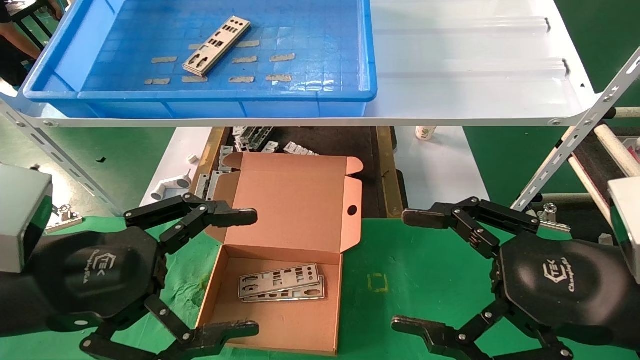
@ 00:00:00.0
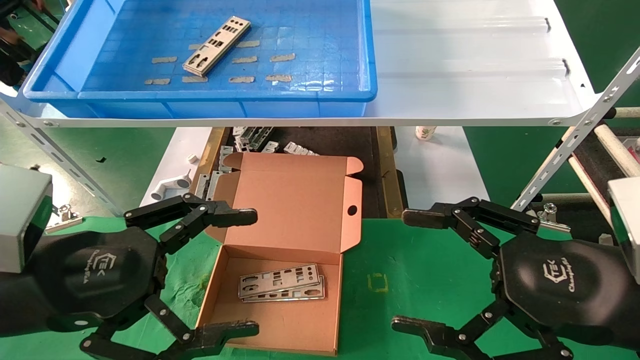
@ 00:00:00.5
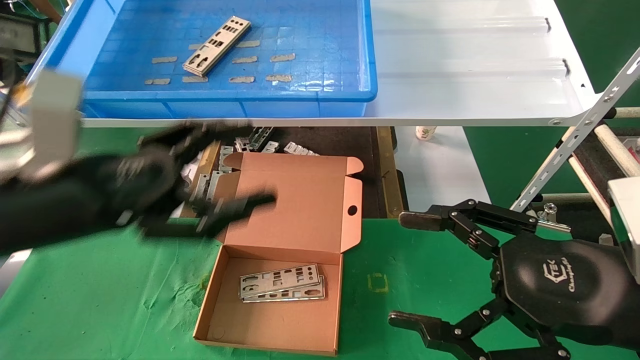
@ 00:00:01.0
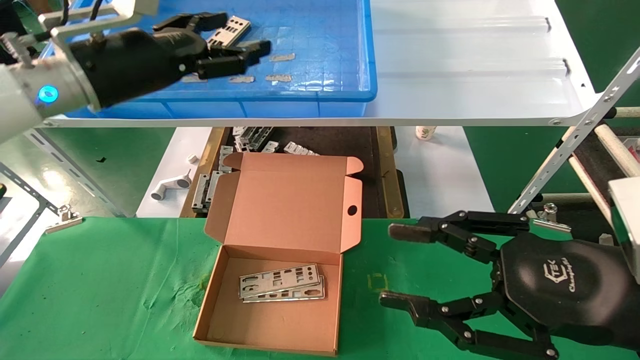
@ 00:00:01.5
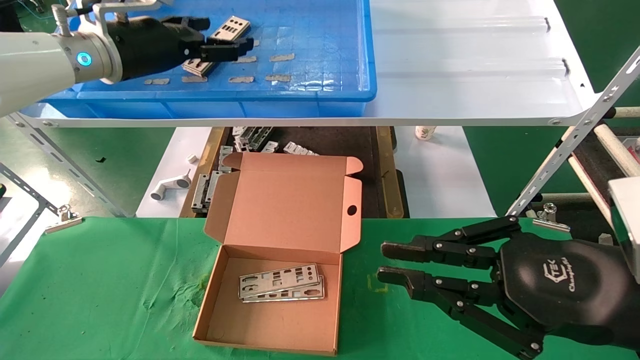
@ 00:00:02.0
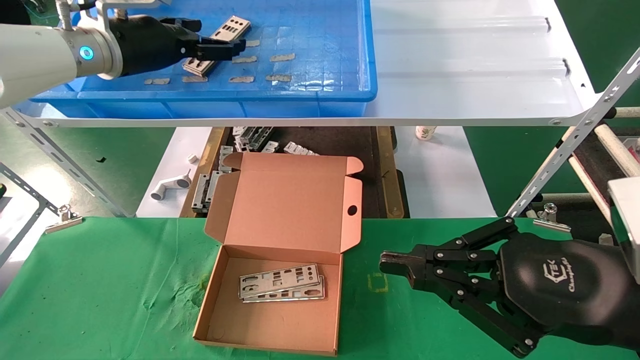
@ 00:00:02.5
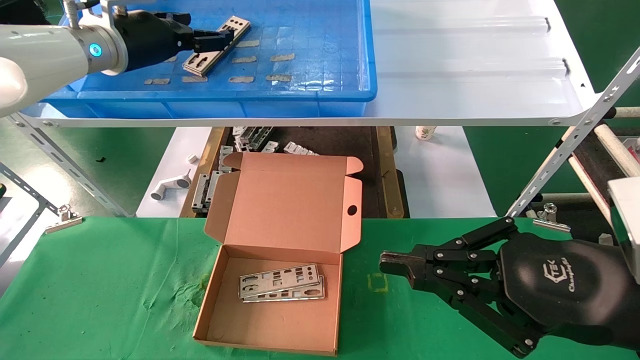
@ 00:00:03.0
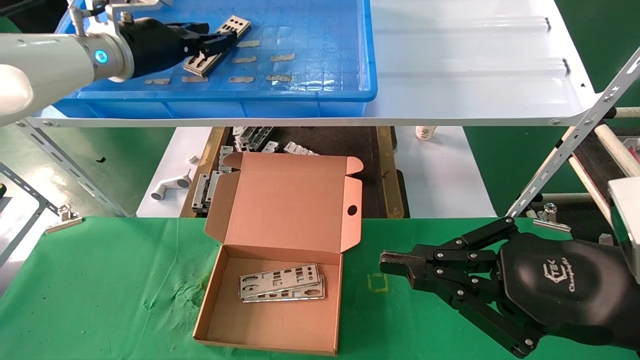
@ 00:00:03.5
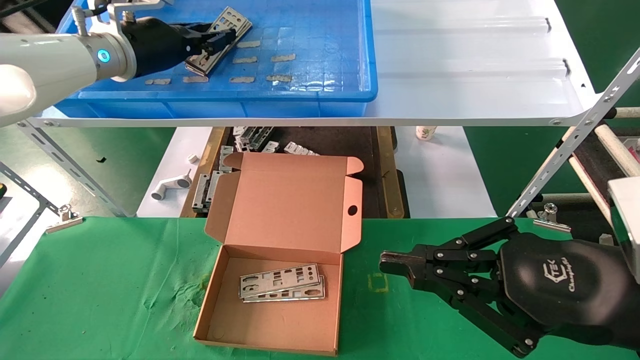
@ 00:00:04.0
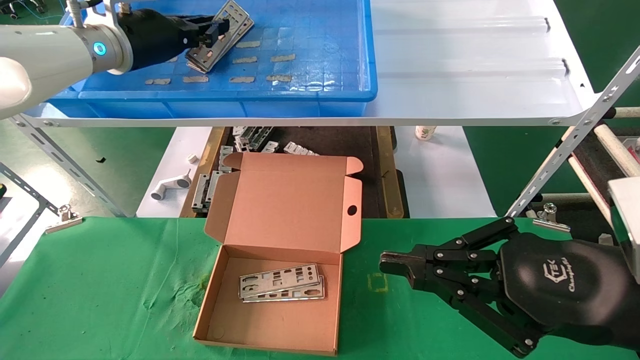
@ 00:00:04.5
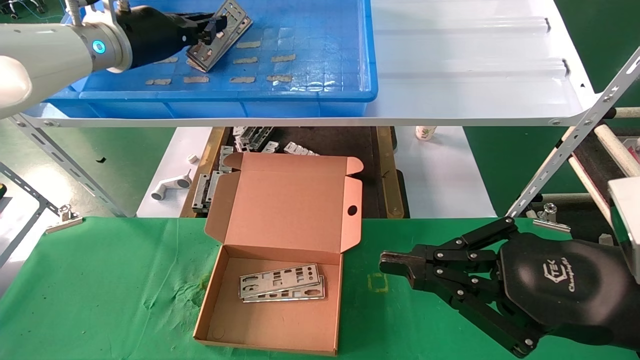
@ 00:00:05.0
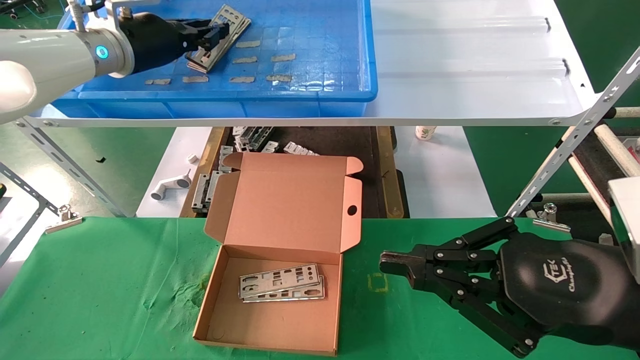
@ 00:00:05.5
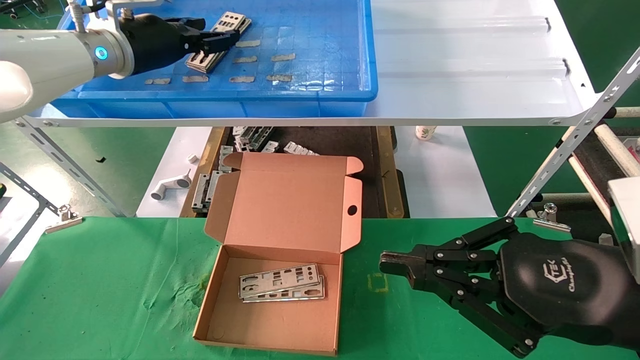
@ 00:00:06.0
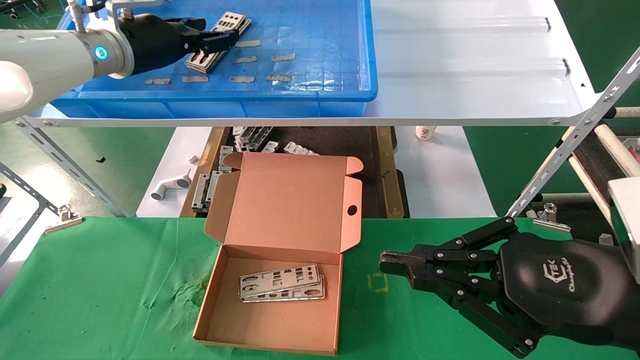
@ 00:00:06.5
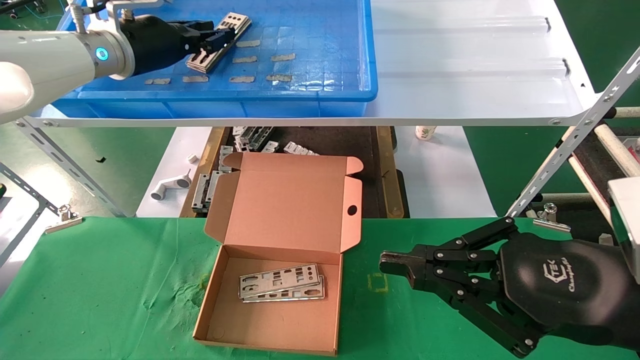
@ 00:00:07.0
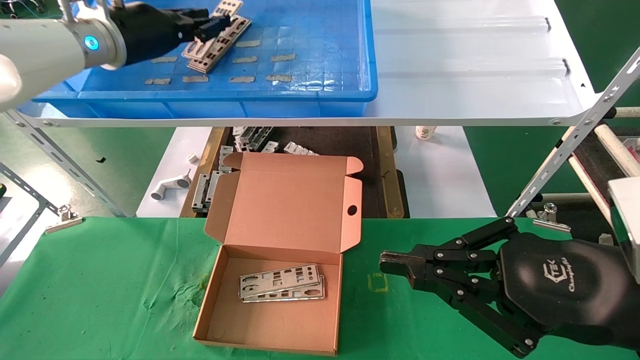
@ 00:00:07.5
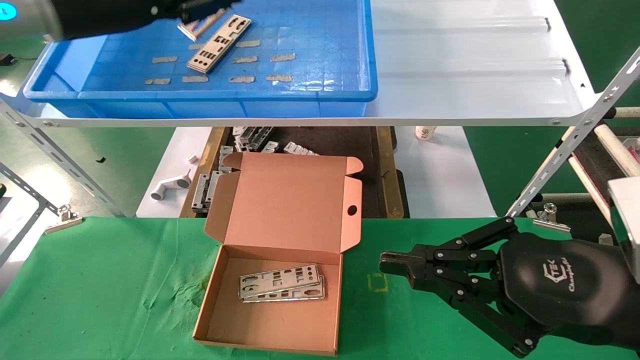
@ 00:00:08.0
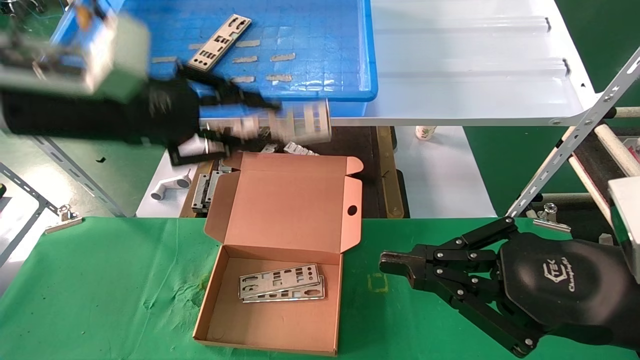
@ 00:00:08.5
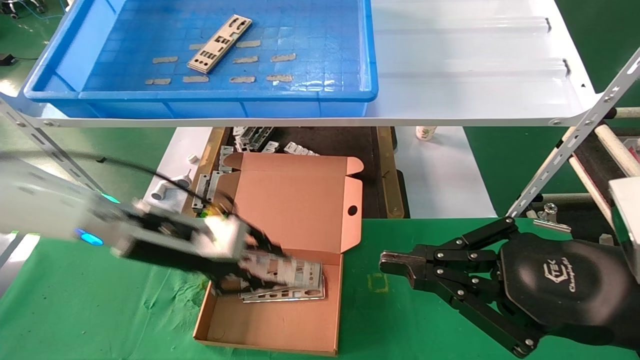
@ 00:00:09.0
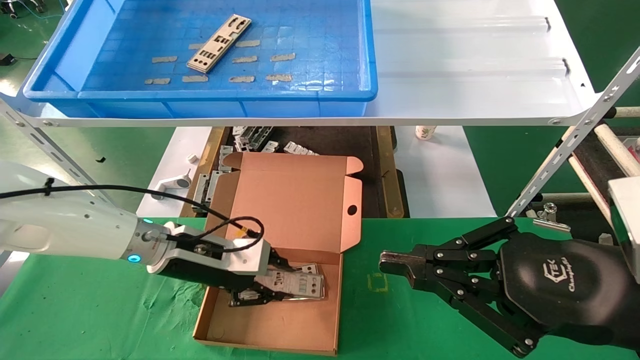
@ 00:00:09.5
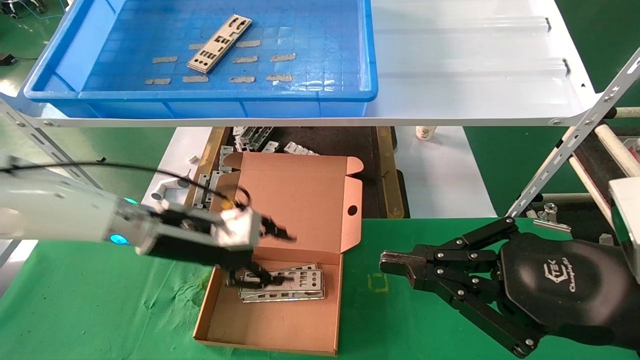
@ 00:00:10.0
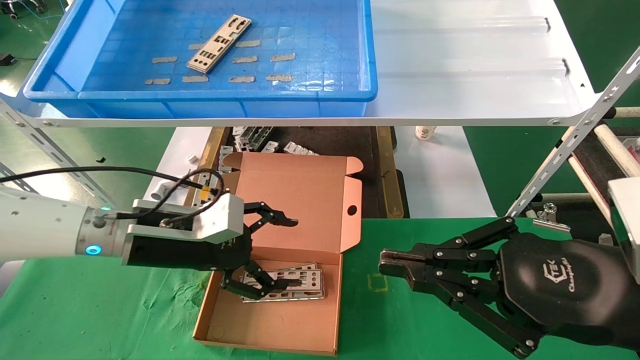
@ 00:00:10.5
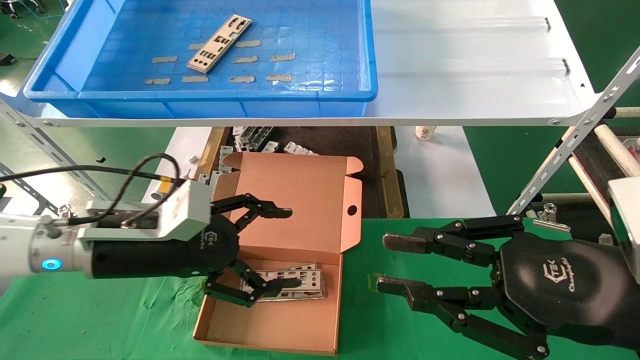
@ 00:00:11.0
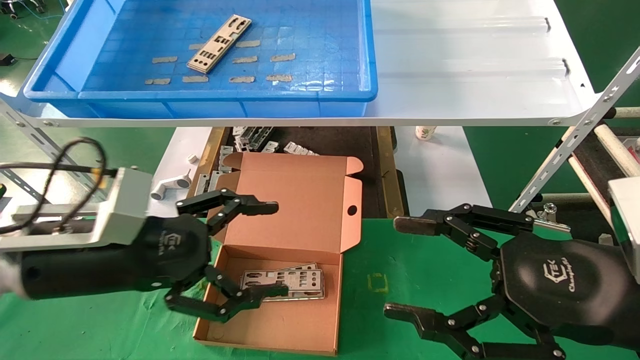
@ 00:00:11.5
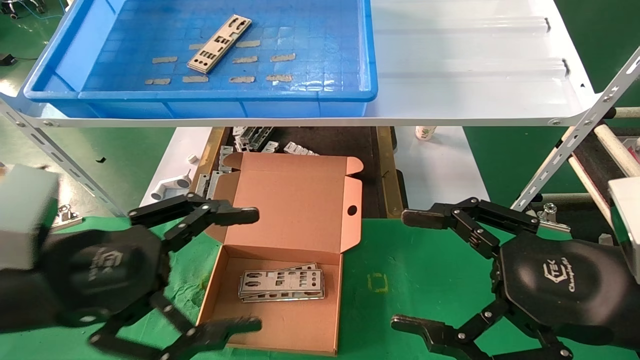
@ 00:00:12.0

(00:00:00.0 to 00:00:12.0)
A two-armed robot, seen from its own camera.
Task of the whole recording: pick up the parts on the tray and put them in the cardboard box.
Step, 00:00:01.0 - 00:00:07.5: Pick up the IO bracket from the container box.
Step, 00:00:08.0 - 00:00:09.5: Place the IO bracket into the ingredient slot.
00:00:00.0 - 00:00:02.0: The right gripper closes, while the left gripper heads forward and upward, covering some 30 cm.
00:00:02.0 - 00:00:04.0: The left gripper closes its fingers.
00:00:04.0 - 00:00:06.0: Neither gripper changes place.
00:00:06.0 - 00:00:08.0: The left gripper heads backward, covering approximately 10 cm.
00:00:08.0 - 00:00:10.0: The left gripper heads downward, covering approximately 25 cm.
00:00:10.0 - 00:00:12.0: The left gripper heads backward, covering roughly 20 cm, and opens up; the right gripper opens up.

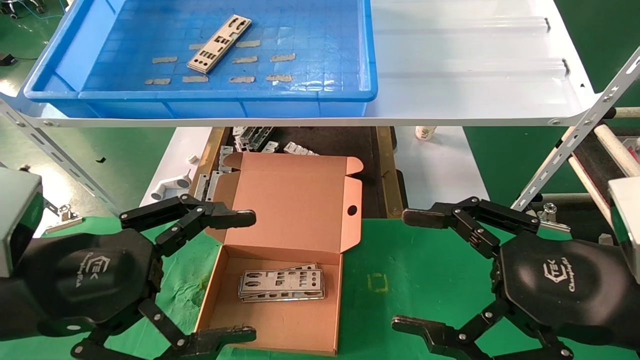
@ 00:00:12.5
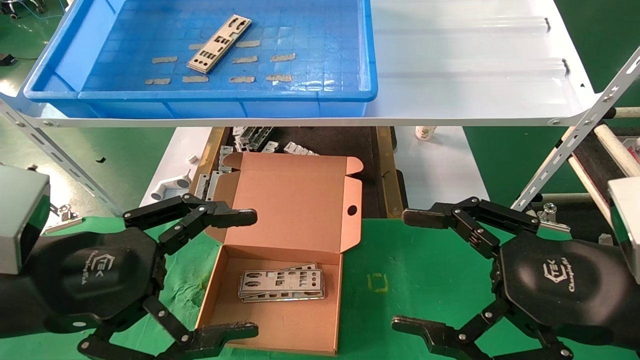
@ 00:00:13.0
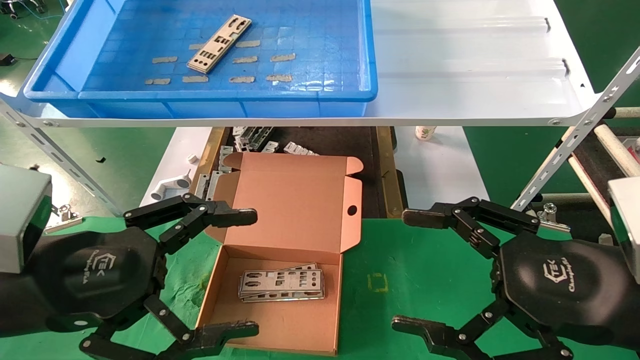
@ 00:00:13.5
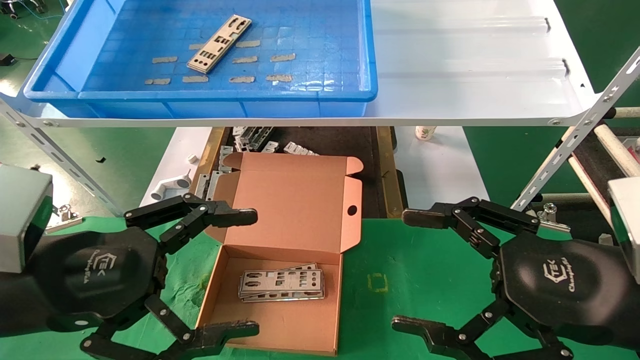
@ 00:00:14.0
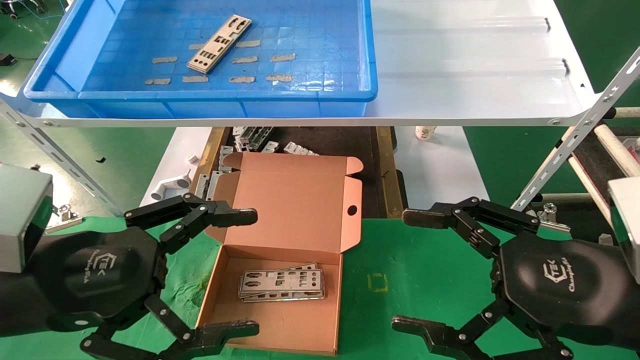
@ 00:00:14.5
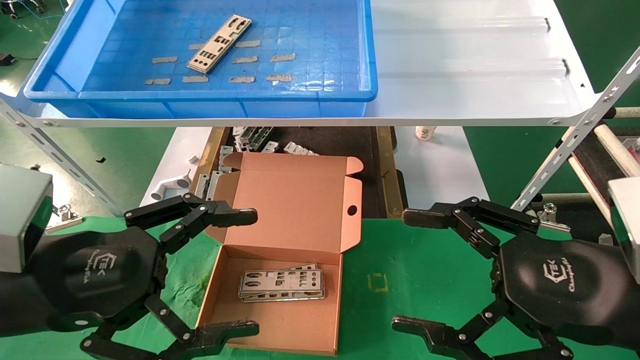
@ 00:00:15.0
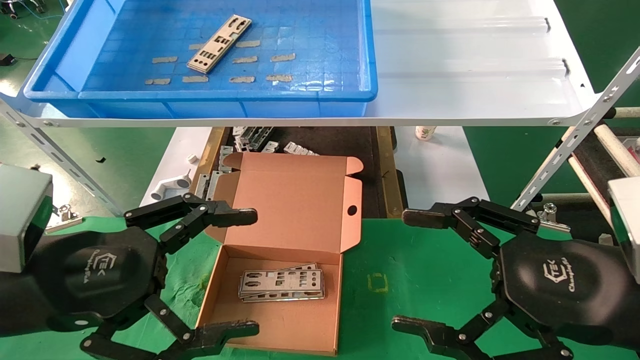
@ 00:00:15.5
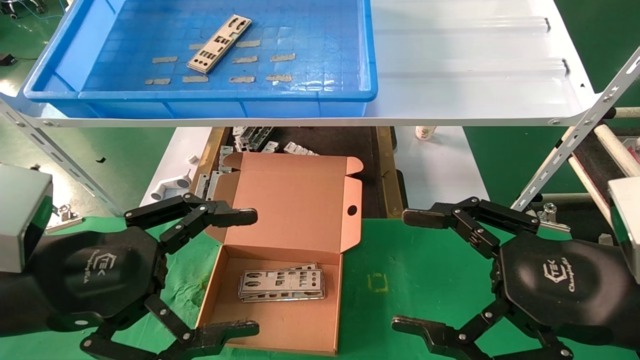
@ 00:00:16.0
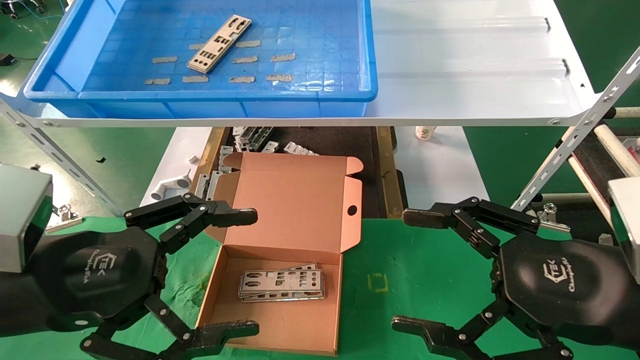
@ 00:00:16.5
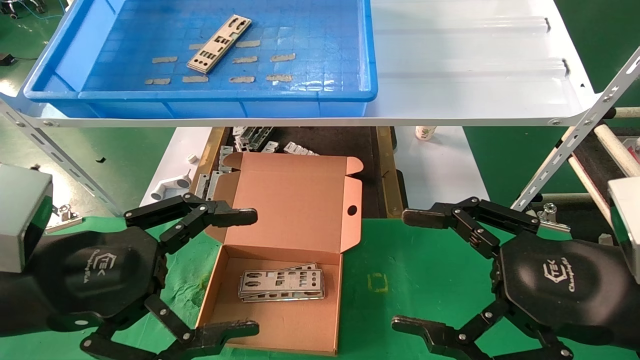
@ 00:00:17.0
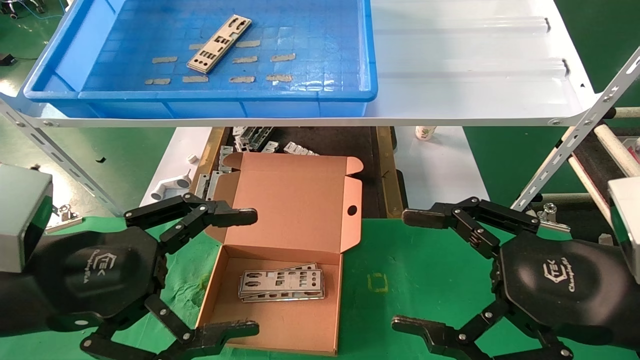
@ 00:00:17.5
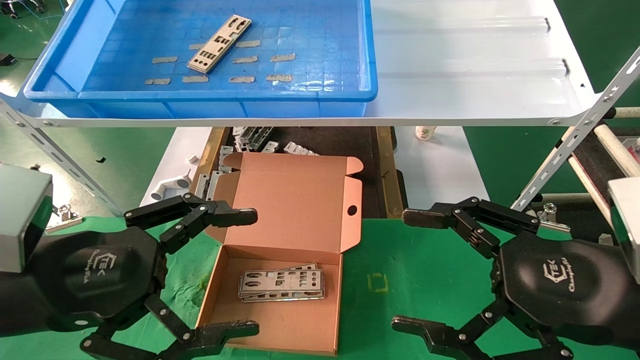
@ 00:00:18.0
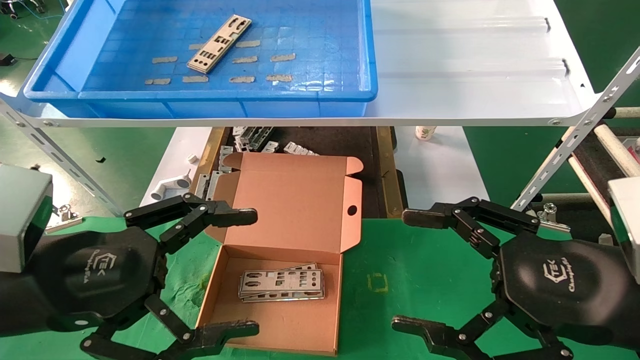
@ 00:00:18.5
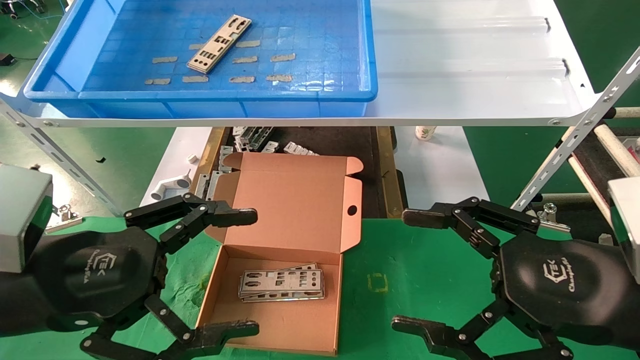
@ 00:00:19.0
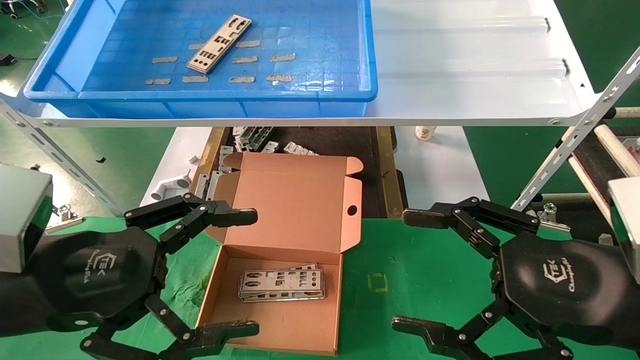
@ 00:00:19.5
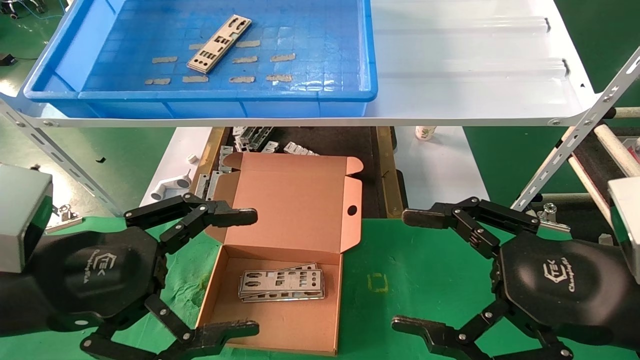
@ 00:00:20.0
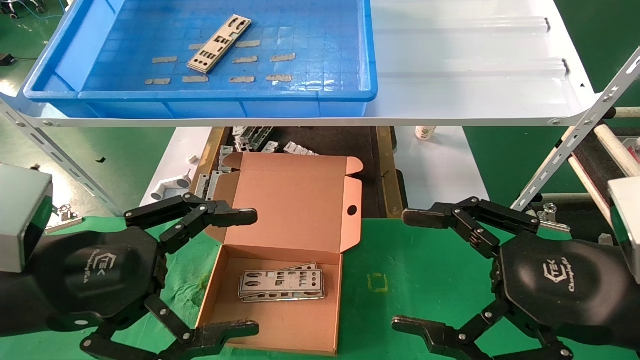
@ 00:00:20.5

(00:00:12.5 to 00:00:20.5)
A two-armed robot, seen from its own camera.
Task of the whole recording: pick up the parts on the tray and put them in the cardboard box.
00:00:12.5 - 00:00:20.5: The two grippers keep their place.
